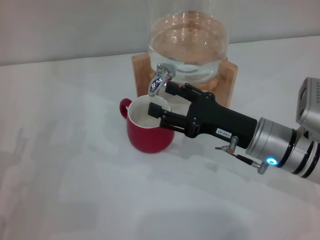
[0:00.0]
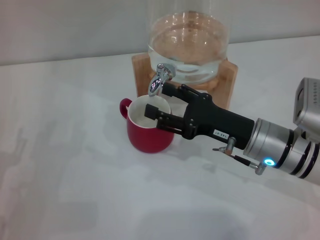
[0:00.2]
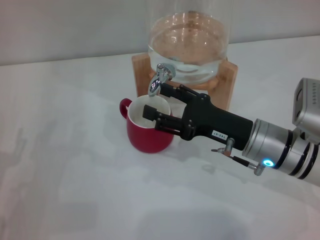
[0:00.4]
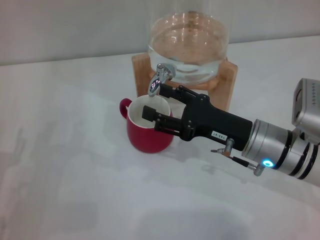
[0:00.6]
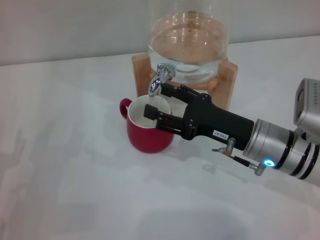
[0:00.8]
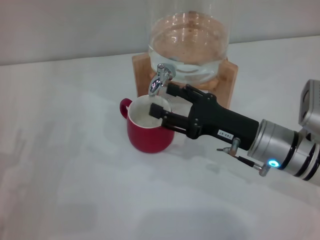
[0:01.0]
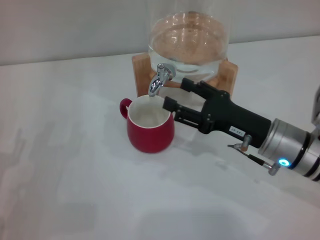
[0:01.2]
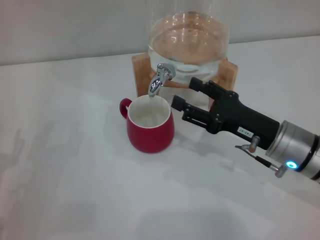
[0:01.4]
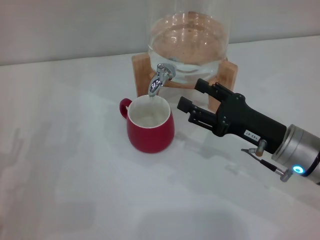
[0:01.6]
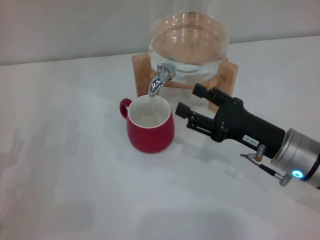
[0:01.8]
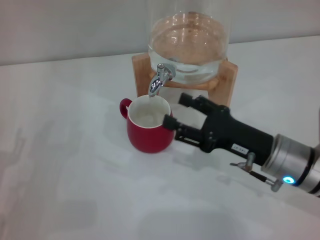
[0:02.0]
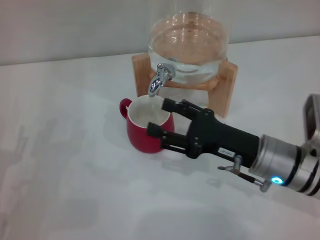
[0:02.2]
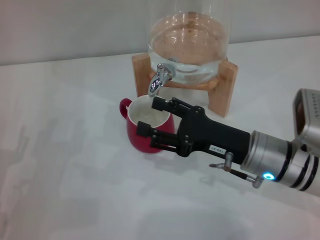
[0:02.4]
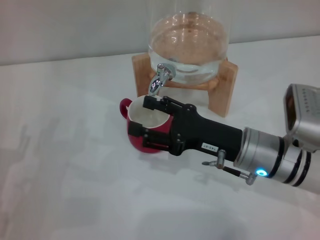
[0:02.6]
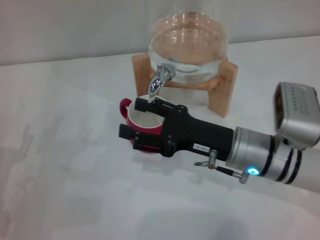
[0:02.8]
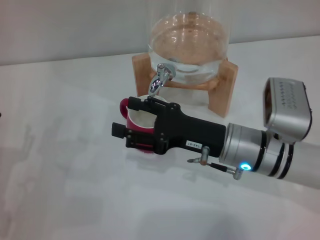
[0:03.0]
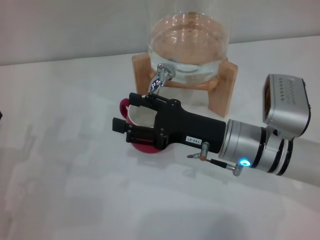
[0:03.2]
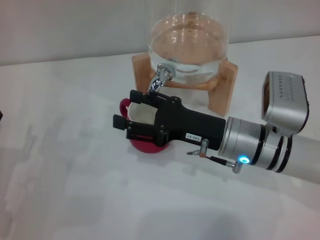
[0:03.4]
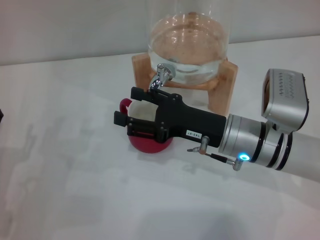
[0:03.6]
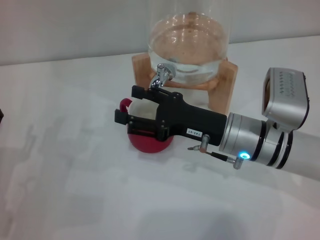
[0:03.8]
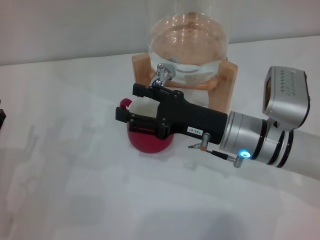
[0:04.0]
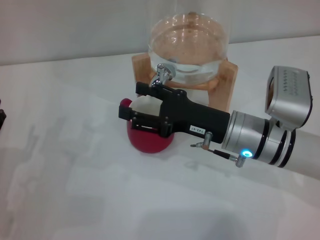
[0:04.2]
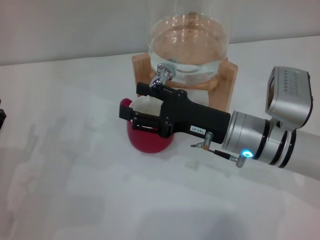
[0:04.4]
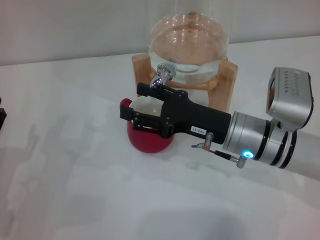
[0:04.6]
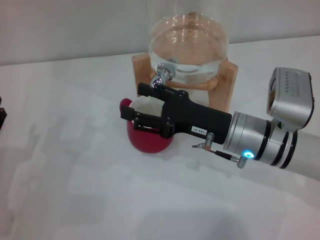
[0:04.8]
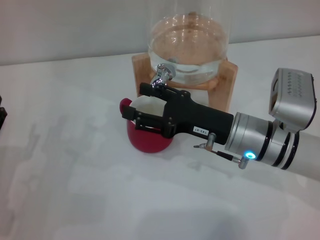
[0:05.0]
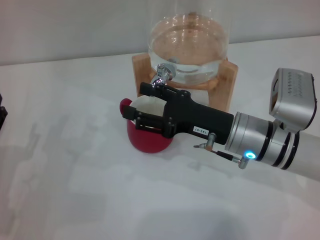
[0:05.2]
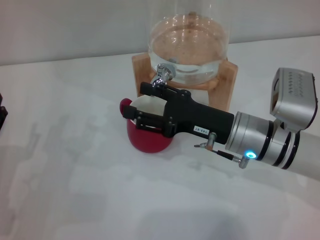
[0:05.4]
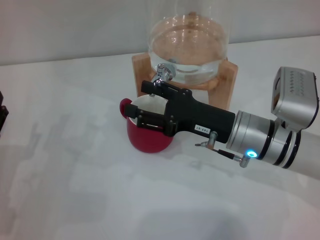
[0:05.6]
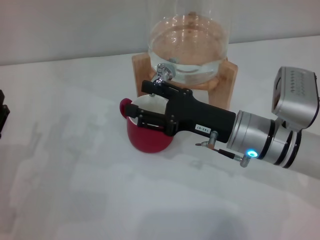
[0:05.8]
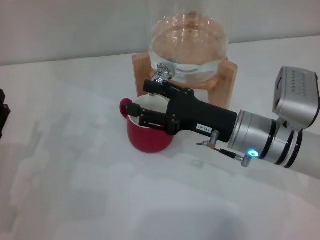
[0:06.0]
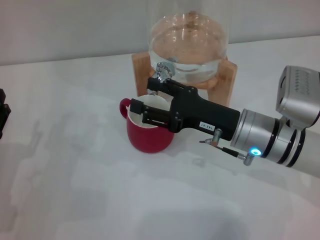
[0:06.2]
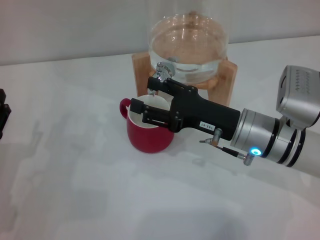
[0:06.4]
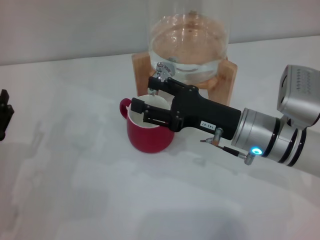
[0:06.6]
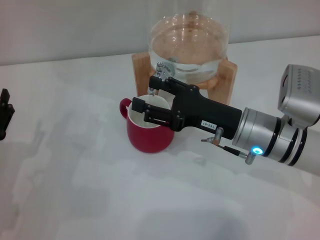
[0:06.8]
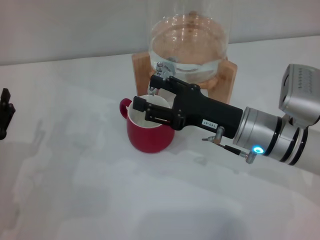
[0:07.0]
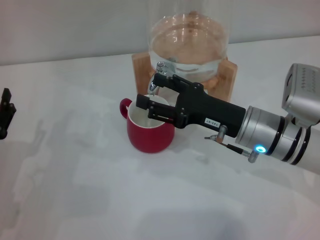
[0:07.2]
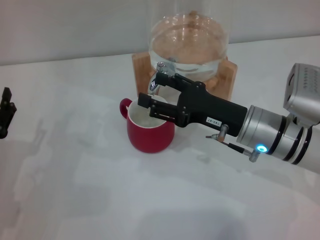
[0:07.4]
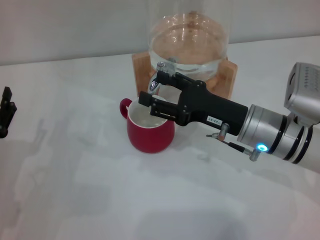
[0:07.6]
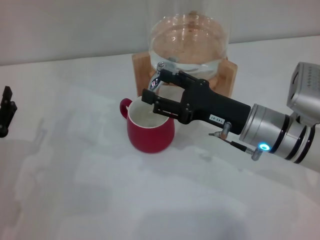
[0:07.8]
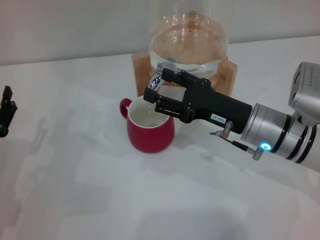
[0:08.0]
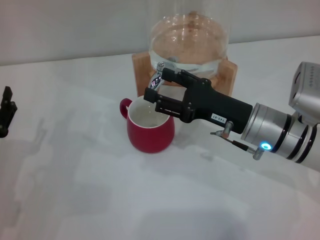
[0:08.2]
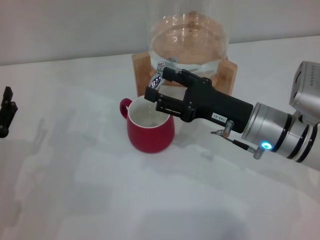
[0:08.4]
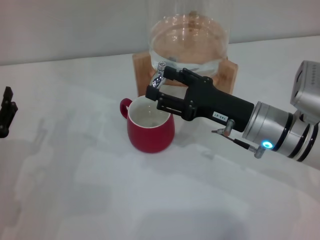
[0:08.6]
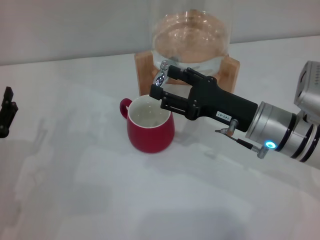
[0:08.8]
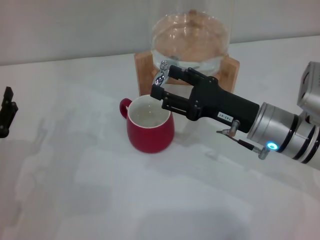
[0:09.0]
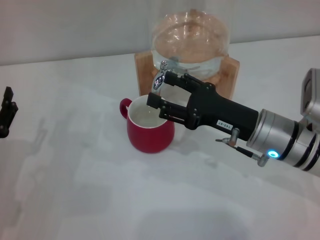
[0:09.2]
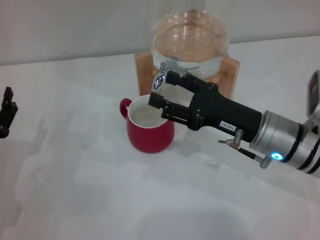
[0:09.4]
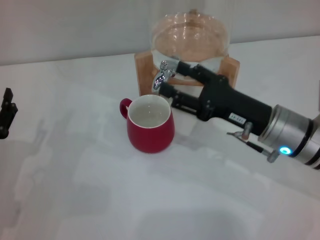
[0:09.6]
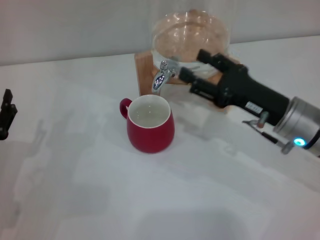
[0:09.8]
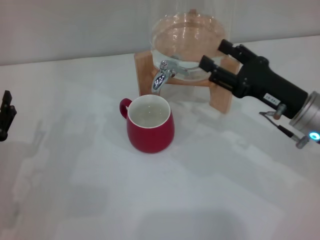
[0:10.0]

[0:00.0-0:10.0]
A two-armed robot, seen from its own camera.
Task of the whole recording: the left gripper pick up the red cup and place it horizontally under the faucet, the right gripper turn on the faucet to fill the cup, and then turn off the faucet.
Step, 1.2 to 9.6 s: Close the dispenser valve with the right gripper.
0.0 to 1.4 s: The grippers make only small movements.
1.4 to 2.8 s: The right gripper moves to the left, roughly 5 cm.
2.8 to 4.2 s: There are only small adjustments of the grippers.
4.2 to 5.8 s: Neither gripper changes place.
5.8 to 7.2 s: Neither gripper changes place.
7.2 to 8.6 s: Both grippers stay about where they are.
8.6 to 10.0 s: The right gripper shifts about 5 cm to the right.

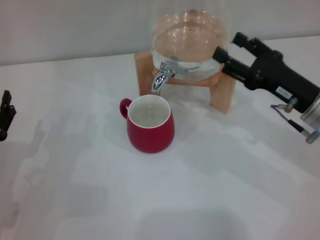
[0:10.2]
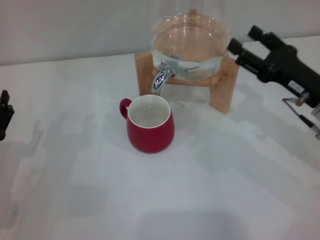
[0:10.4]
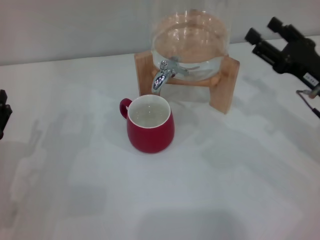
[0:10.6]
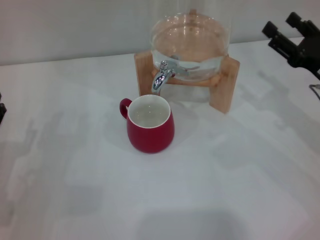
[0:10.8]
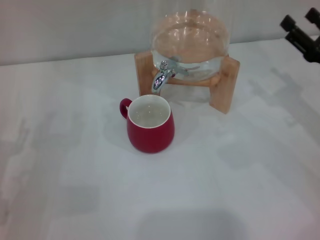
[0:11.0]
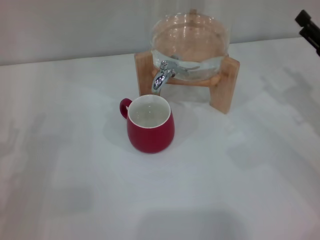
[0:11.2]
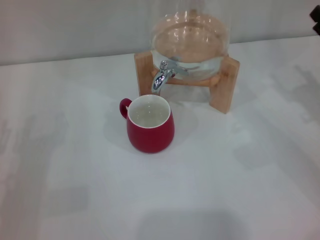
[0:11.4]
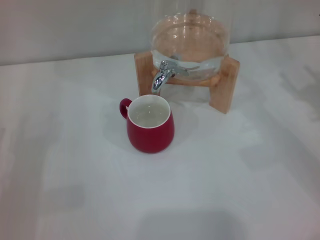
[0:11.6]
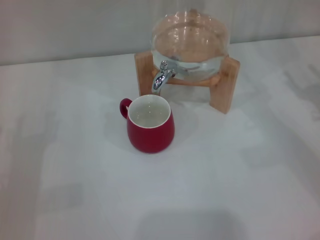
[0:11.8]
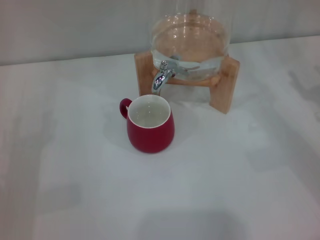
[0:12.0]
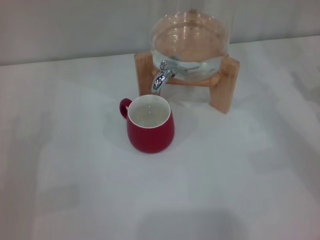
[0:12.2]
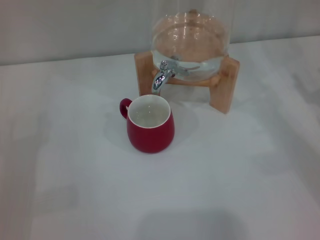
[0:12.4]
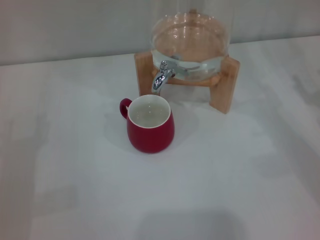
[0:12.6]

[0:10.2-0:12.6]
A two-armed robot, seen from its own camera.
Task of the whole recording: the left gripper pick up the red cup and place it horizontally under the faucet, the right gripper turn on the faucet to fill the cup, and then turn off the faucet.
10.2 to 11.4 s: The right gripper moves to the right, some 10 cm.
11.4 to 12.6 s: The grippers stay close to where they were, moving slightly.

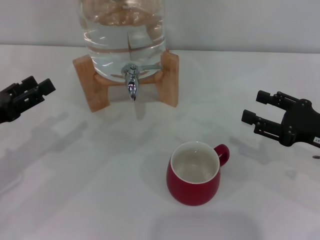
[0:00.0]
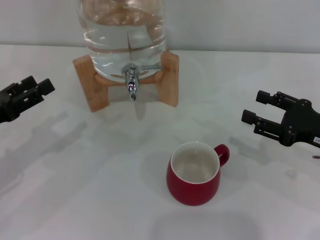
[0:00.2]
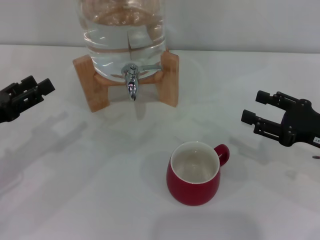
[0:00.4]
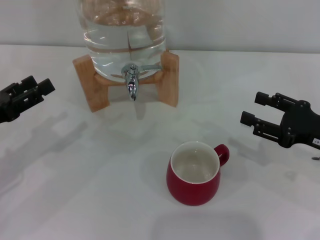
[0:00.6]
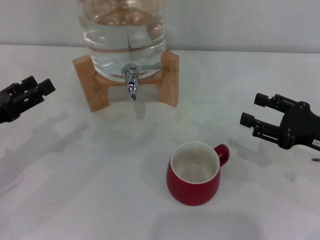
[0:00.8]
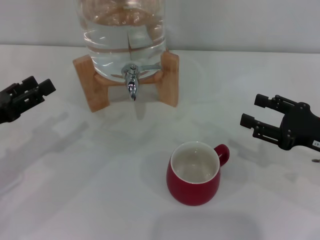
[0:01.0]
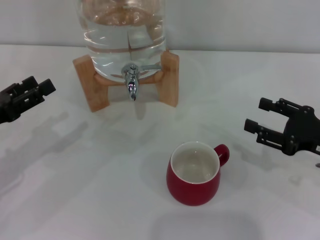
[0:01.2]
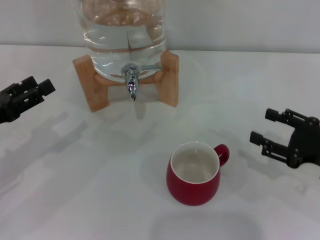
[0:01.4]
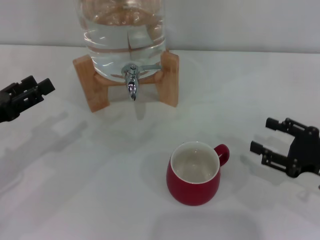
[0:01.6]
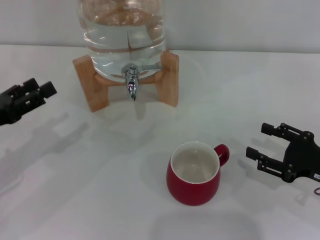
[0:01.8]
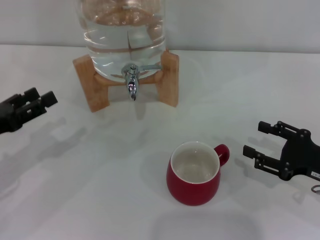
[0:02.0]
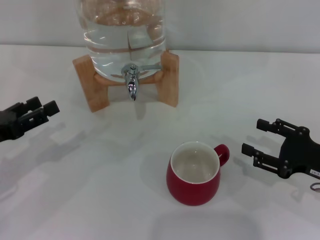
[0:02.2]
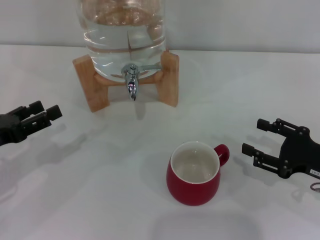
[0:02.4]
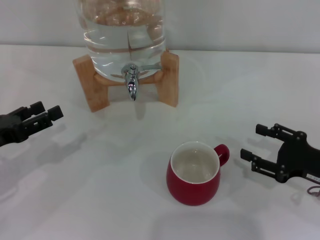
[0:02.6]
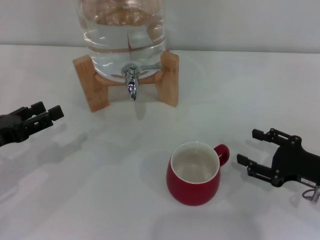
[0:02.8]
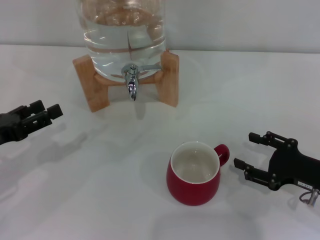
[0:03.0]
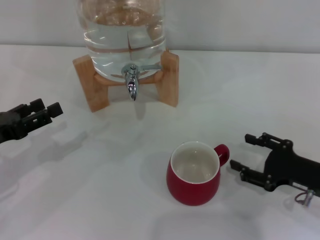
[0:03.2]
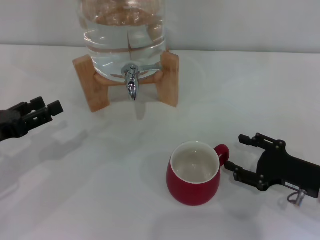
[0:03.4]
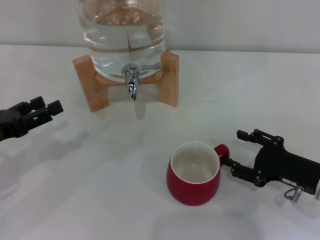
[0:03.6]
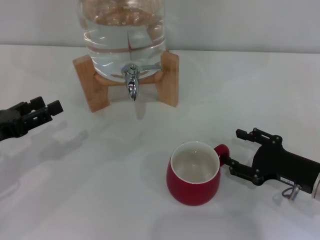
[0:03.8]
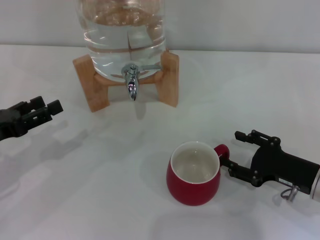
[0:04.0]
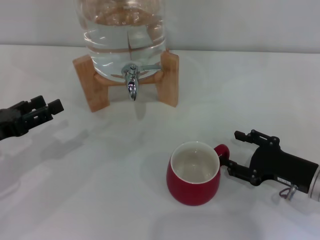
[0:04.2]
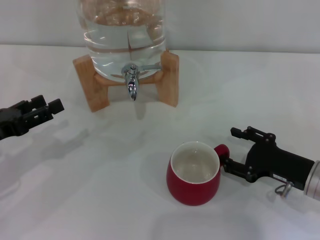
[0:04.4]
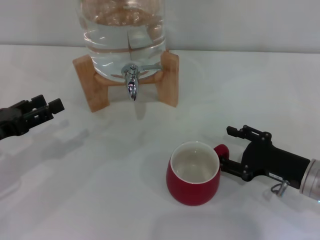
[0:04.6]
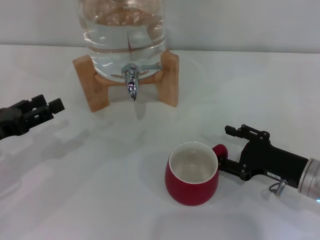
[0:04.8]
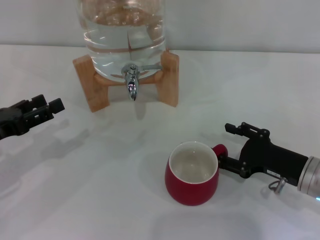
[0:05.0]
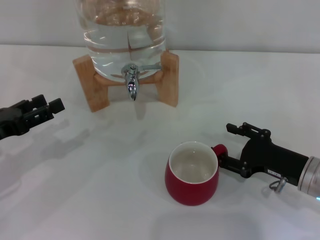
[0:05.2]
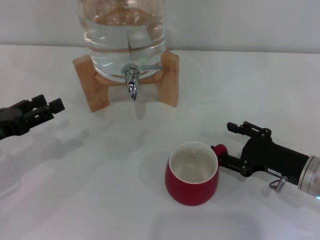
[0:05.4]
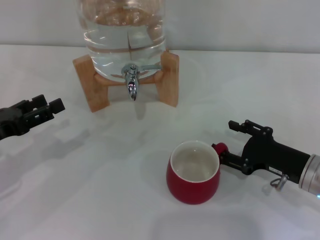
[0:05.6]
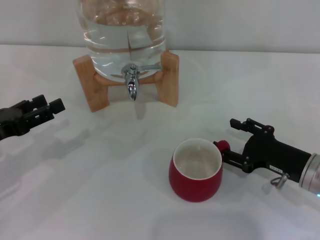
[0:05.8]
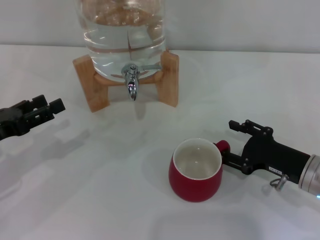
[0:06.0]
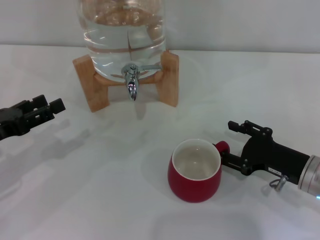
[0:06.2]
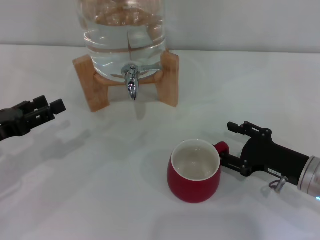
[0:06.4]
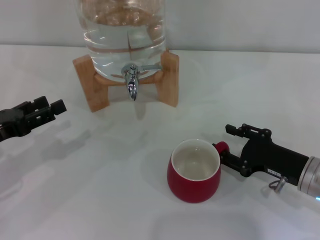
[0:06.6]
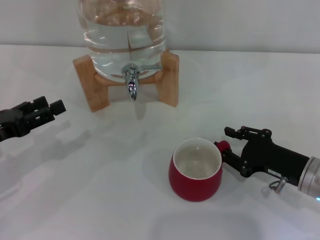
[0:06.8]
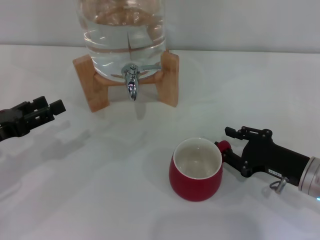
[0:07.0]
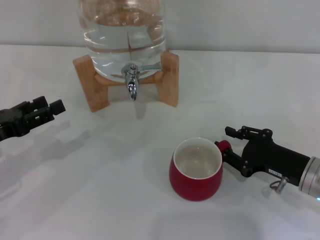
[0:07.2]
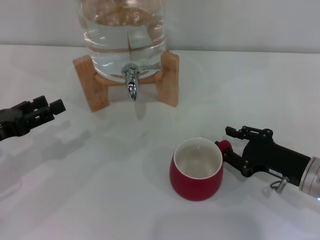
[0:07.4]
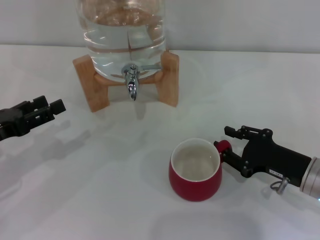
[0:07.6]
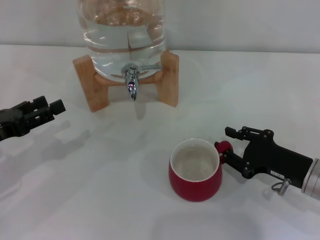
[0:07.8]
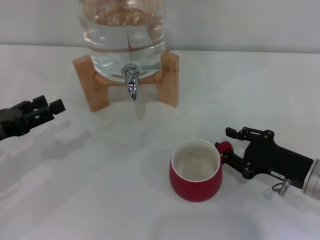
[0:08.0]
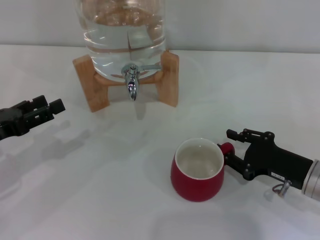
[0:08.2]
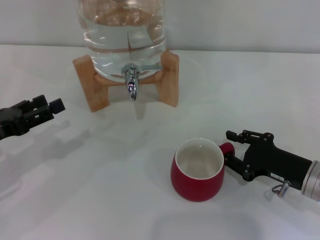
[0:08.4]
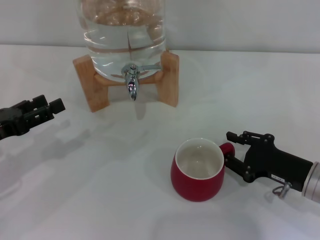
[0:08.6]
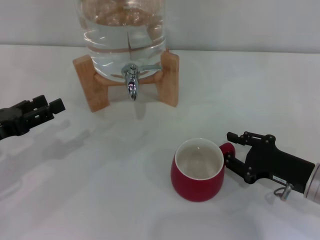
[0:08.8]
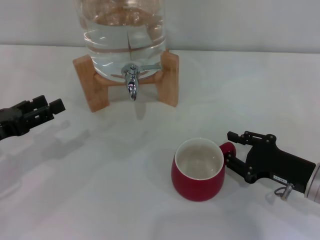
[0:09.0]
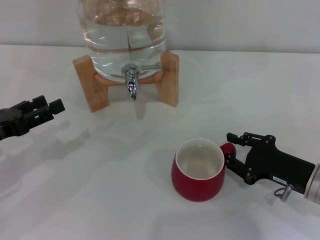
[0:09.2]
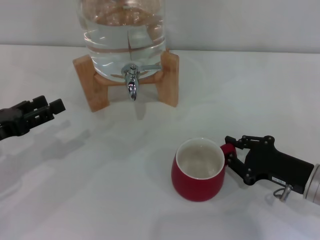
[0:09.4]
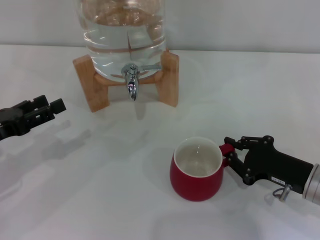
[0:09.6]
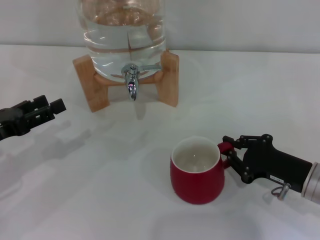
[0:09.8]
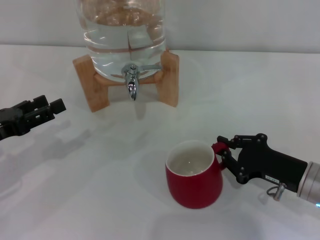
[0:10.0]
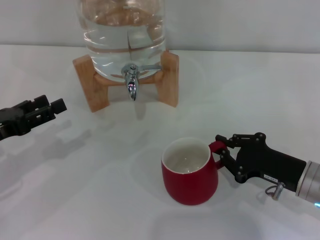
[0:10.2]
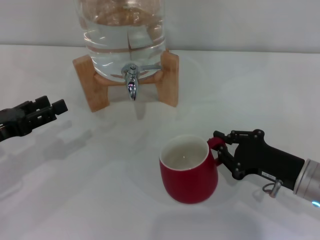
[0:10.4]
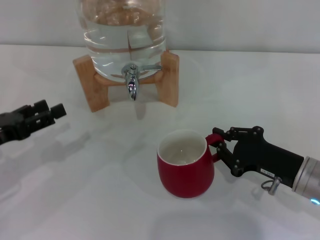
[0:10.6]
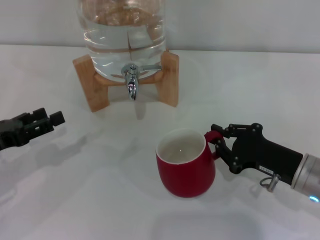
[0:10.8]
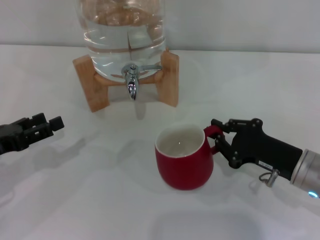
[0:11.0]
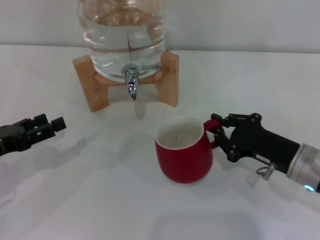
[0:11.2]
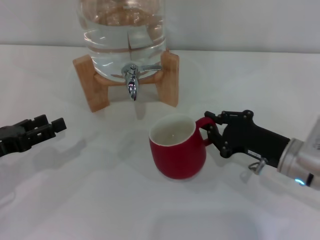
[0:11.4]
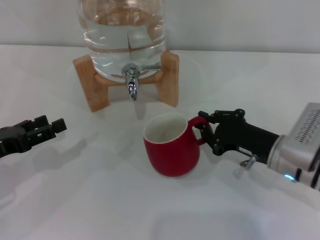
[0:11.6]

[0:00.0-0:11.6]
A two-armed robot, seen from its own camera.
Task of the whole recording: the right gripper pick up the red cup and place it horizontally under the faucet, the left gripper turn on the faucet to fill the cup, and then turn off the faucet.
0.0 to 2.8 s: The grippers stay close to where they were, moving slightly.
2.8 to 4.4 s: There are only small adjustments of the grippers.
4.4 to 8.8 s: Both grippers stay about where they are.
8.8 to 10.2 s: The right gripper closes.
10.2 to 11.6 s: The right gripper moves roughly 5 cm.
